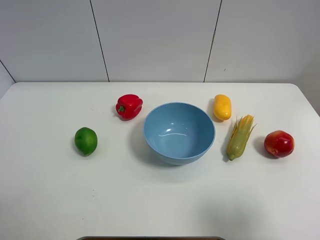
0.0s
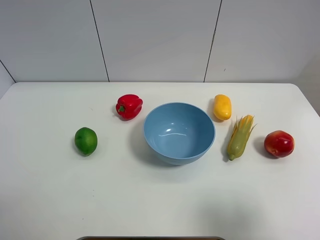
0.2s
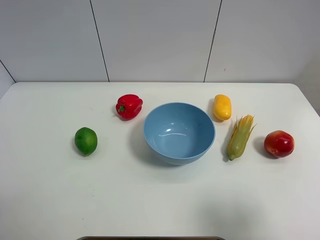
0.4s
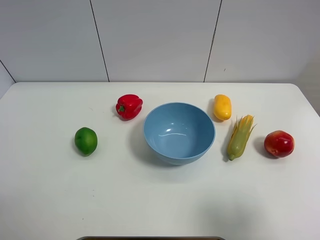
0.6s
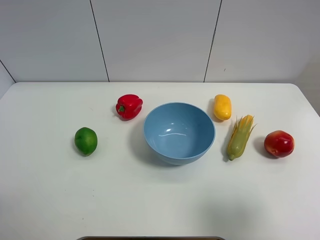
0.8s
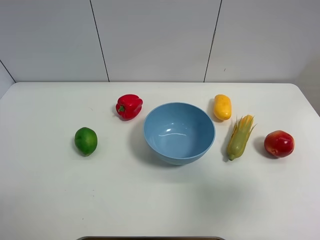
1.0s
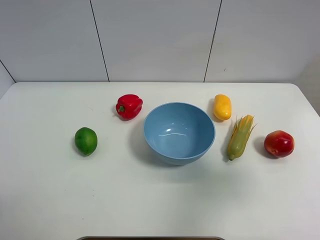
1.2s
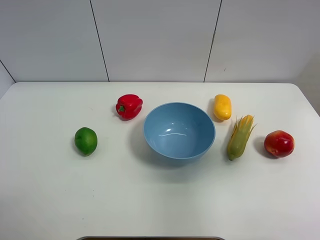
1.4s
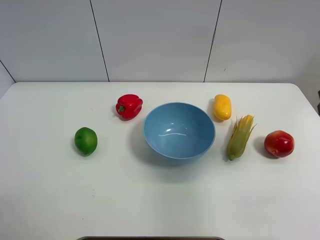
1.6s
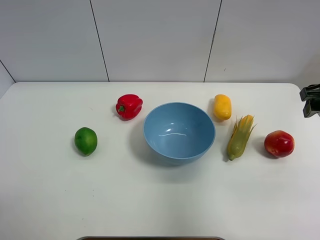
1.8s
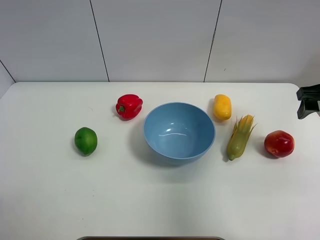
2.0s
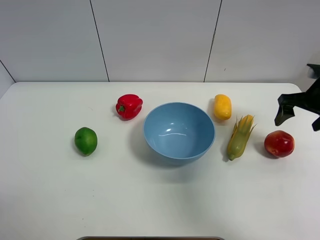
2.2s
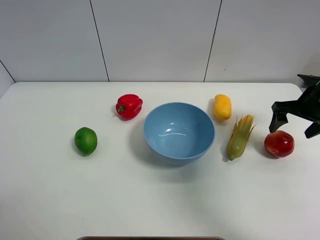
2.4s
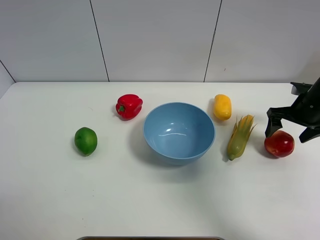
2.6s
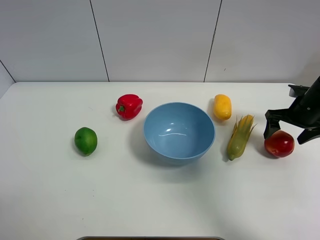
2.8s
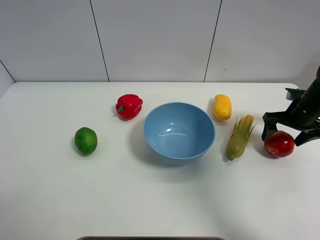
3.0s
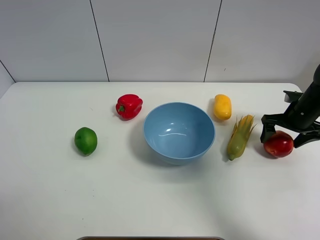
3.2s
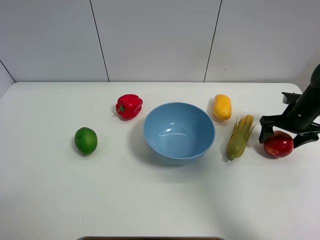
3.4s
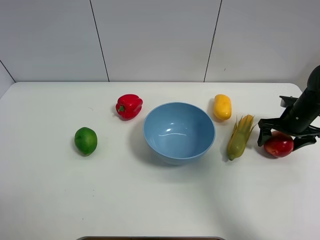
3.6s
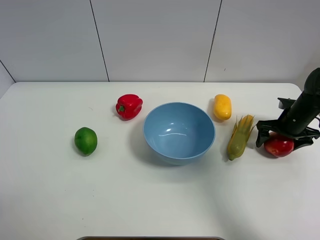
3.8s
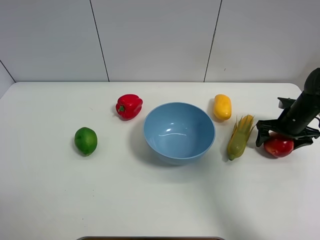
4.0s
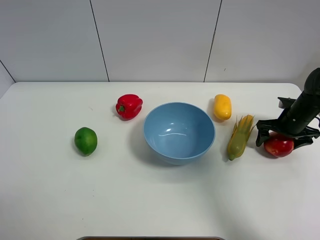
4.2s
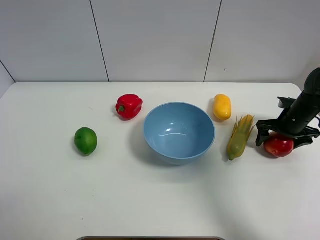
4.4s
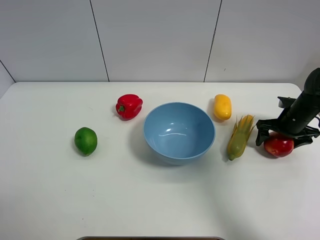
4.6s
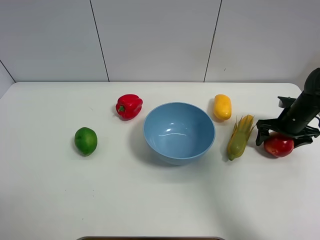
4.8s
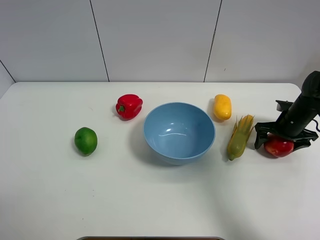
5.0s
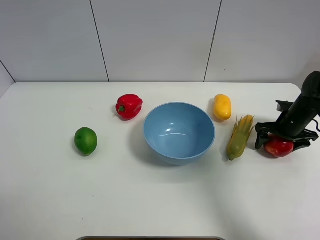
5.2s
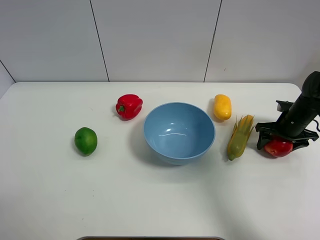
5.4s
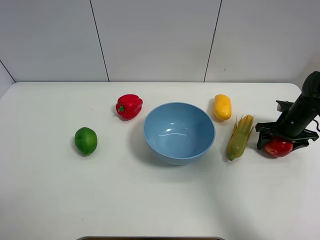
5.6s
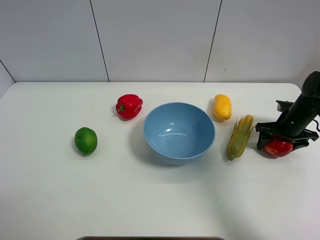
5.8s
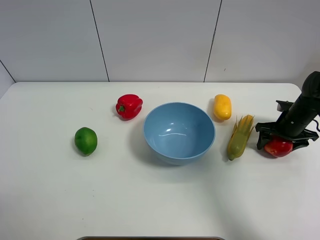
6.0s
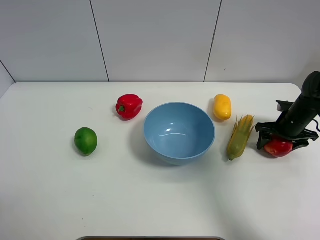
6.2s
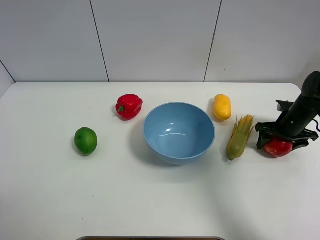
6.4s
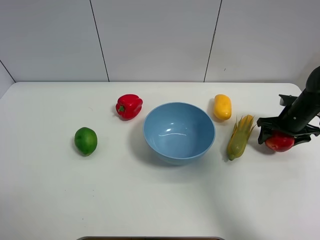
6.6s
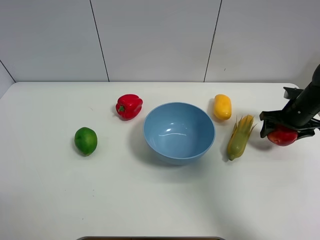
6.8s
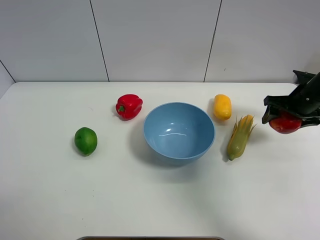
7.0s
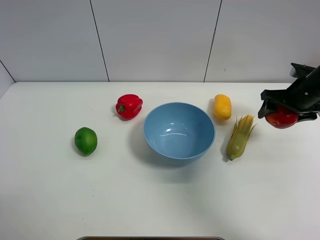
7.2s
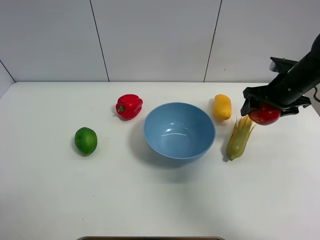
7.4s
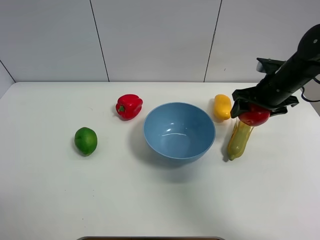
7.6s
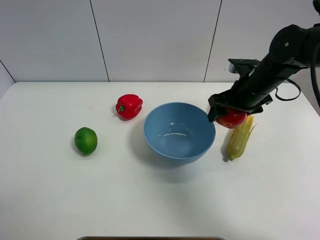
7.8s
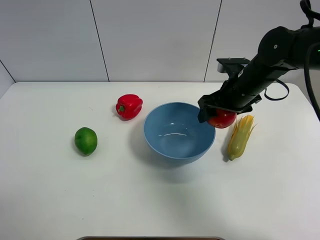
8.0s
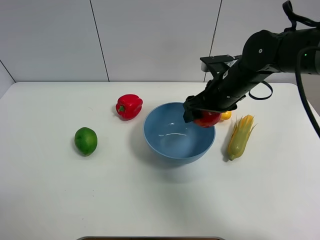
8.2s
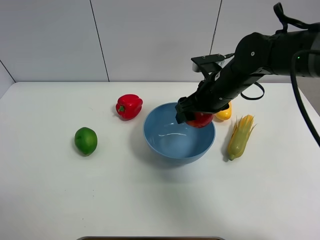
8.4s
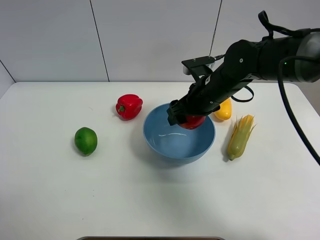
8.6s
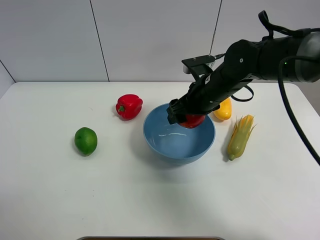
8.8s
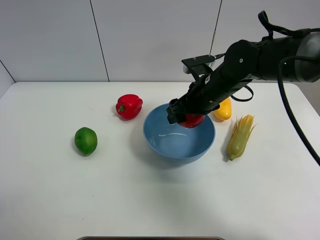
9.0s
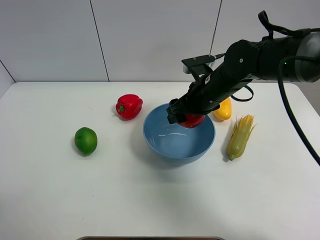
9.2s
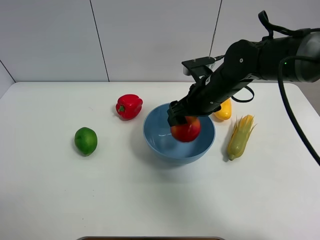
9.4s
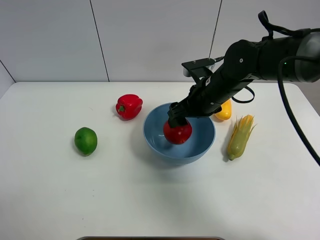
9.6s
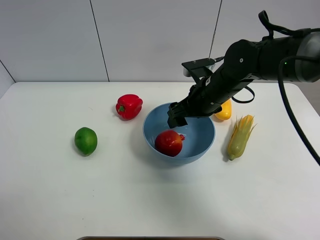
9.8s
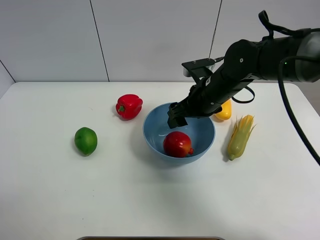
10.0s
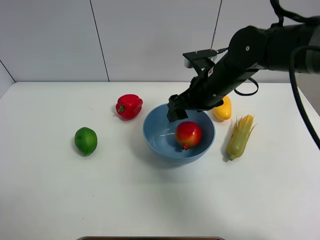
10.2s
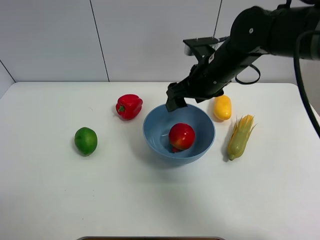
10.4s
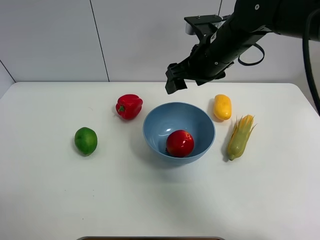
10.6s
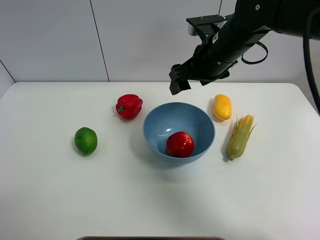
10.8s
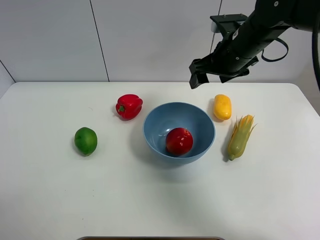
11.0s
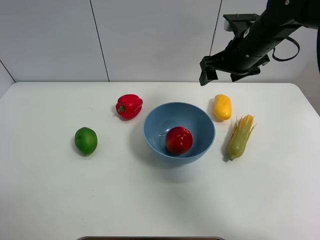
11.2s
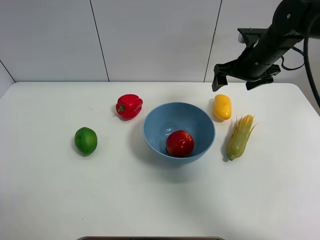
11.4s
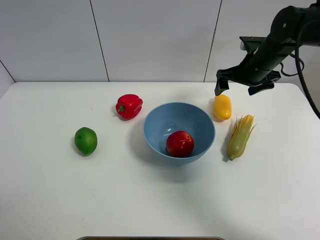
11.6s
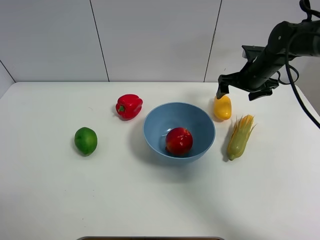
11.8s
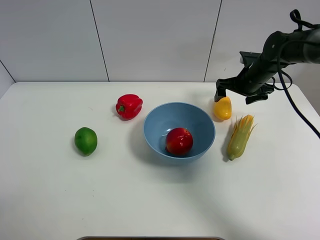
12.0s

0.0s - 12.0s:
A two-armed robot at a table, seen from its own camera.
Task of the whole recording: Put the three fruits on the table into a bowl.
Step, 0.0s - 5.4s: Grasp the pomegranate with right gripper.
Step, 5.6s - 9.6s: Place the pomegranate in the blue bowl with right gripper.
0.0s - 1.6s: The right gripper moves forward, approximately 20 cm.
1.6s - 3.0s: The right gripper is displaced downward and forward by some 20 cm.
3.0s - 4.4s: The grippers make only small movements.
4.4s - 6.0s: Both grippers stay put.
6.0s - 7.6s: The right gripper travels upward and to the left by roughly 15 cm.
7.6s - 9.0s: The right gripper shifts roughly 15 cm to the left.
9.0s - 10.4s: The right gripper is displaced upward by roughly 5 cm.
10.4s - 12.0s: The right gripper heads to the right, forward and downward, covering approximately 20 cm, and opens up.

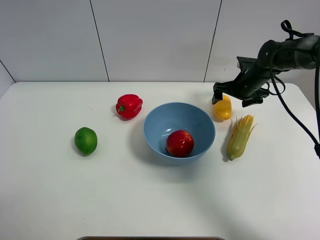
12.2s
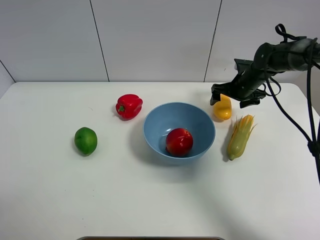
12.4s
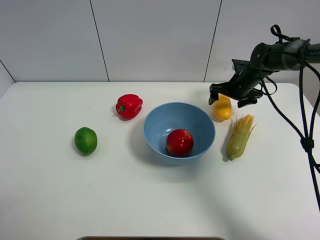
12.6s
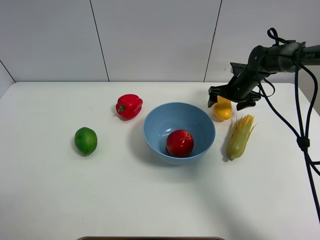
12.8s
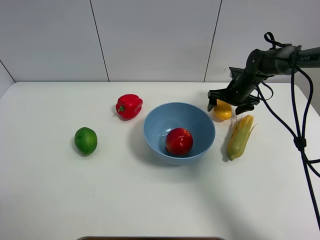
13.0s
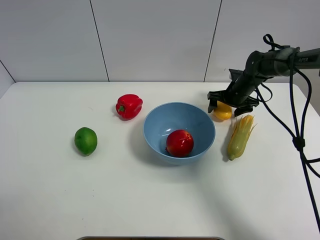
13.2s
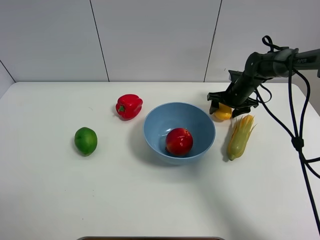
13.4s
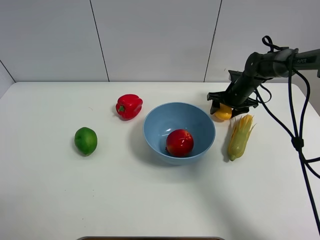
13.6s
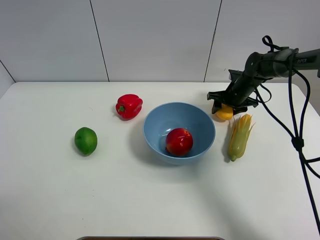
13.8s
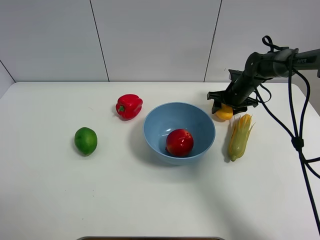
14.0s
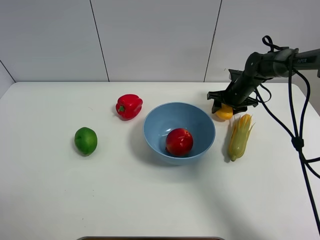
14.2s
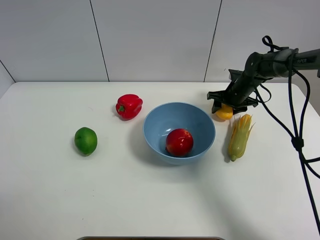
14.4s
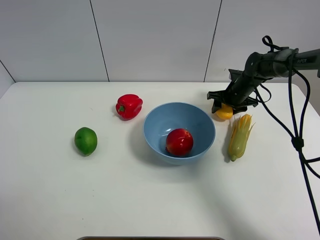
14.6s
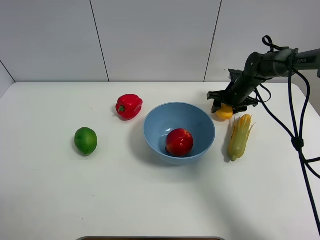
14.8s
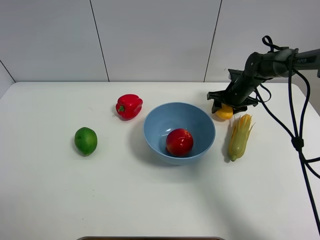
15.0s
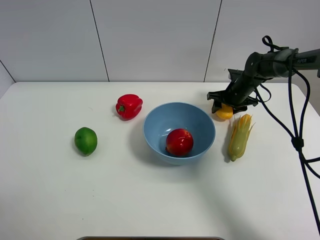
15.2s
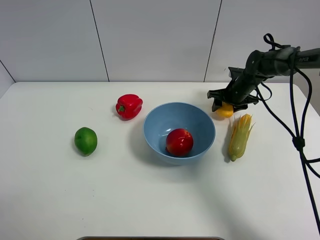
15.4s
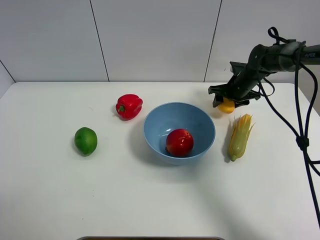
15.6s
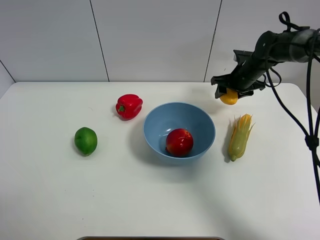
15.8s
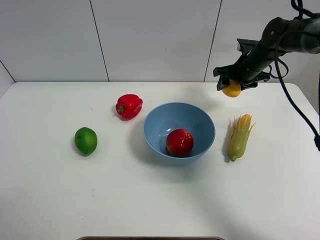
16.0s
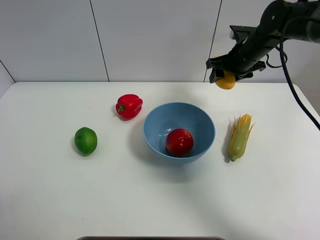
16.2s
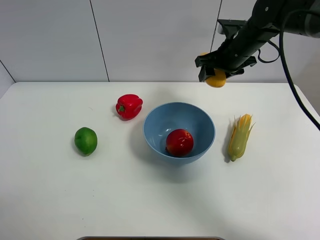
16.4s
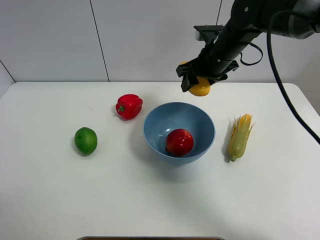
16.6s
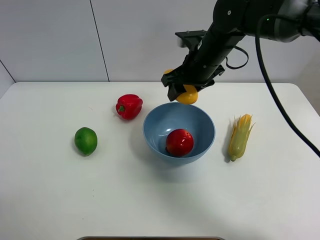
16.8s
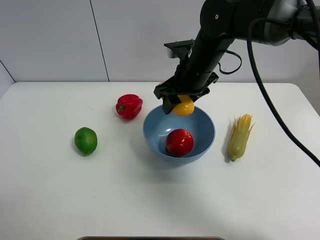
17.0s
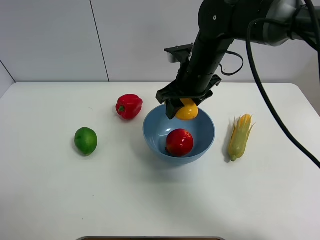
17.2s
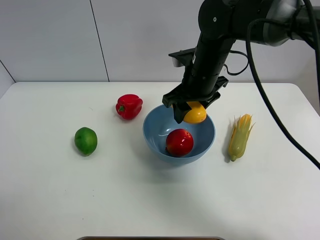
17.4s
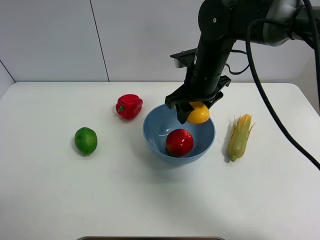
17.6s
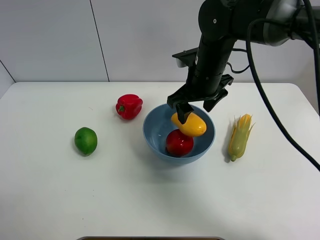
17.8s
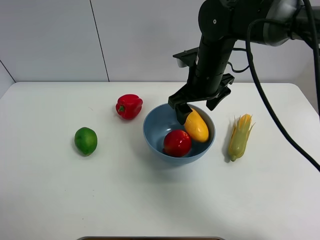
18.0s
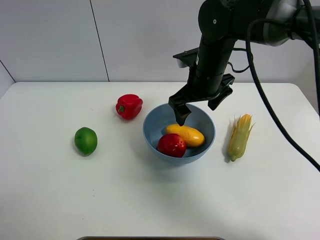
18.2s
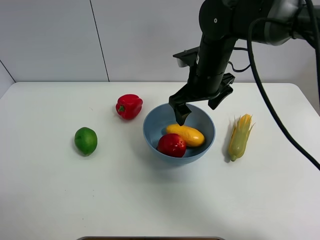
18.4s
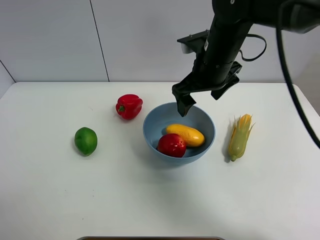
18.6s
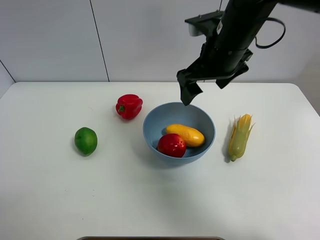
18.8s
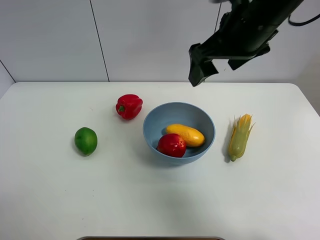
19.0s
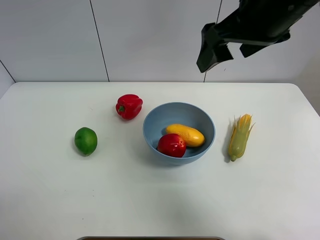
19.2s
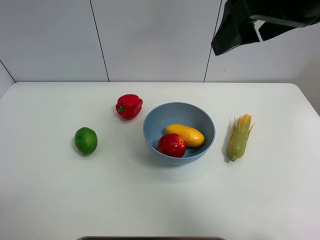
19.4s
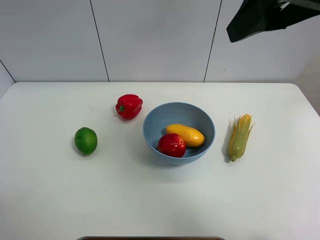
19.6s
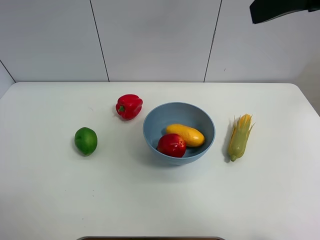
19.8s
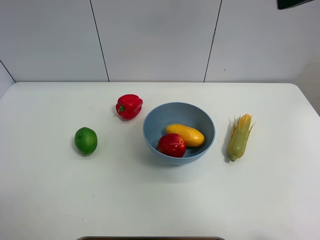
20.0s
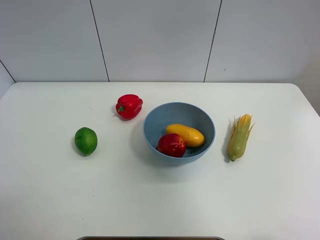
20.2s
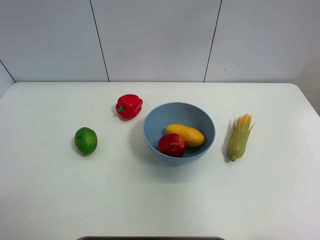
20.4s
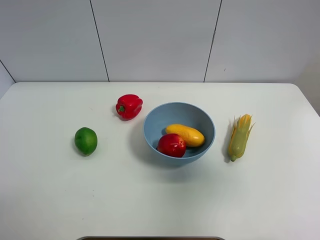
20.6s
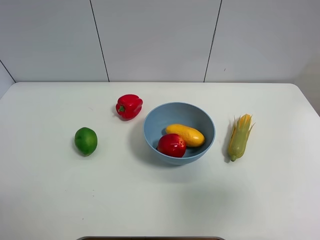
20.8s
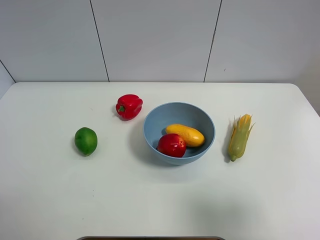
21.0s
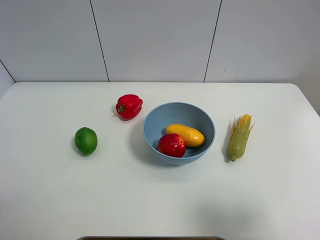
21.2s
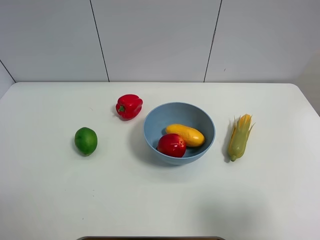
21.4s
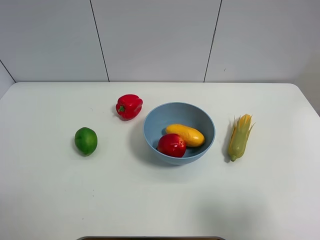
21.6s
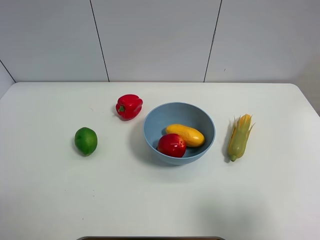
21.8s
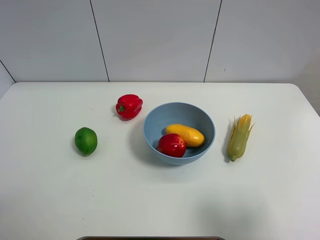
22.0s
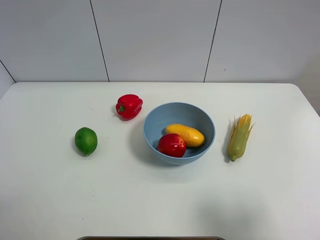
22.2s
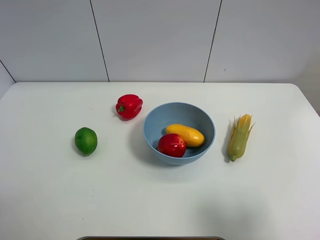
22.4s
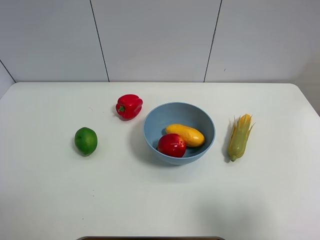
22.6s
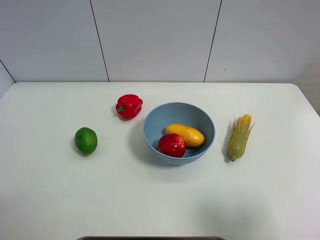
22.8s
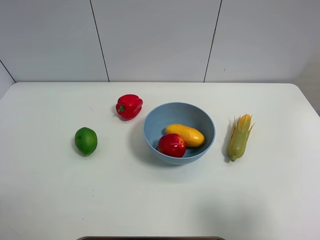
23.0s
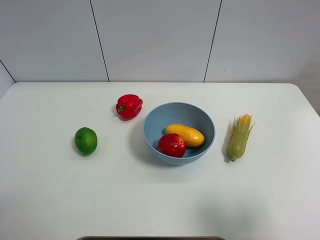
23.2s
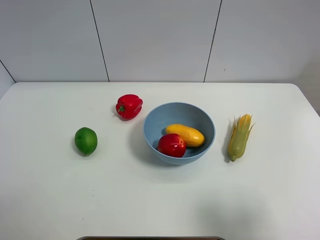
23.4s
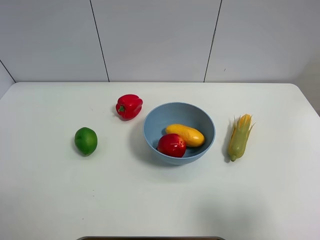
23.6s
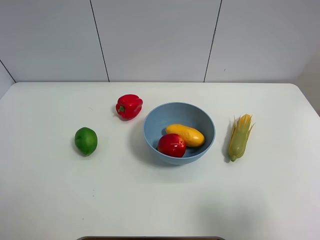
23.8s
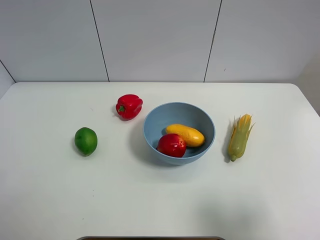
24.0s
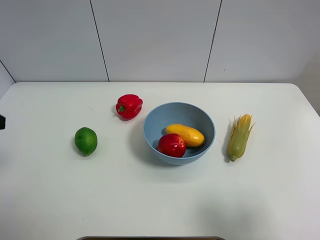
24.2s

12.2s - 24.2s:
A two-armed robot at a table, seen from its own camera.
Task of the whole recording: Put the three fruits on the table into a bowl.
Step, 13.8s - 18.2s: Place the mango in the blue bowl with right gripper.
12.2s - 13.8s: The right gripper moves approximately 5 cm, and closes up.
13.8s - 15.2s: The two grippers keep their place.
15.2s - 16.6s: The right gripper is displaced upward, to the left and backward by approximately 20 cm.
16.6s - 18.2s: The right gripper moves roughly 5 cm, and opens its fingers.
18.2s - 19.8s: The right gripper heads upward, backward and to the right, covering approximately 30 cm.
19.8s - 21.2s: The right gripper shifts about 25 cm downward, backward and to the right.
